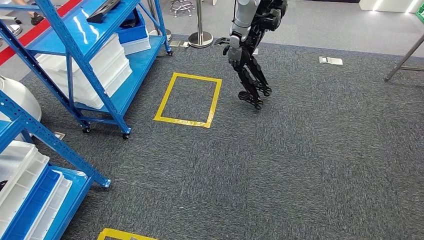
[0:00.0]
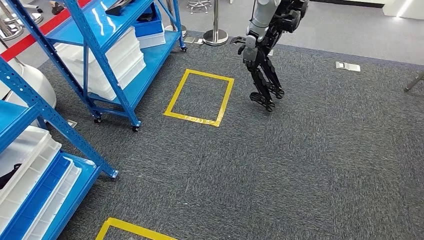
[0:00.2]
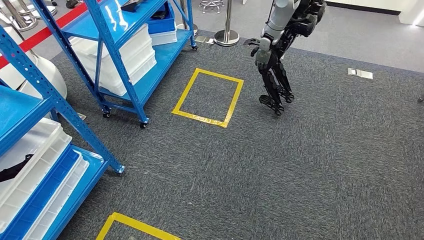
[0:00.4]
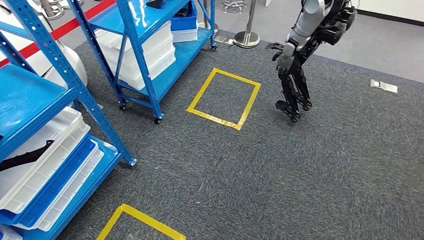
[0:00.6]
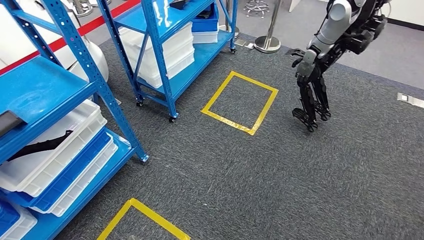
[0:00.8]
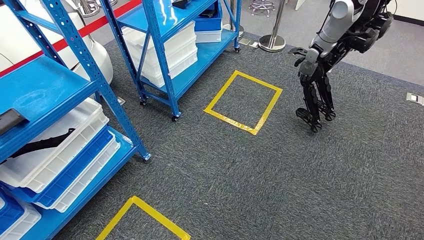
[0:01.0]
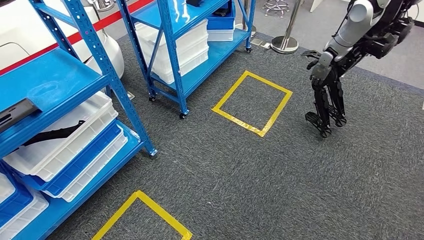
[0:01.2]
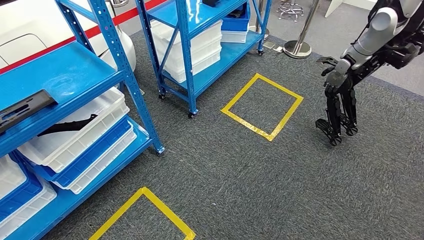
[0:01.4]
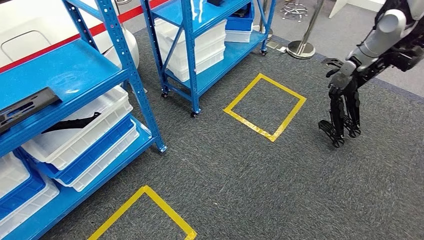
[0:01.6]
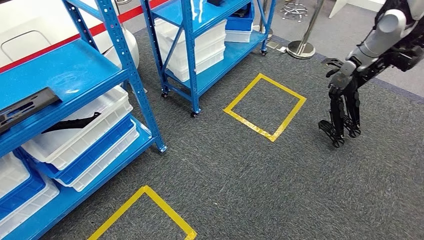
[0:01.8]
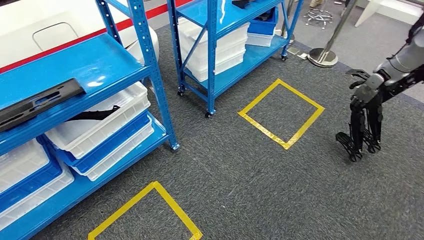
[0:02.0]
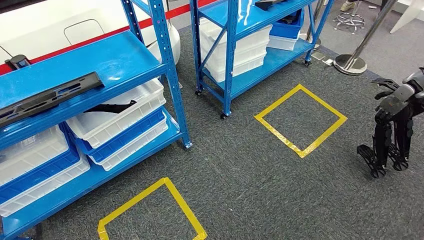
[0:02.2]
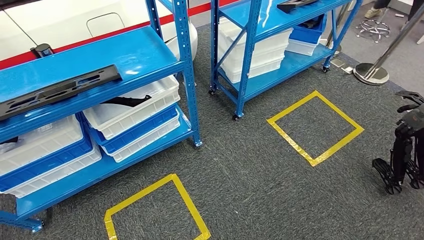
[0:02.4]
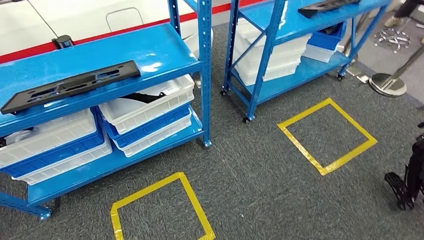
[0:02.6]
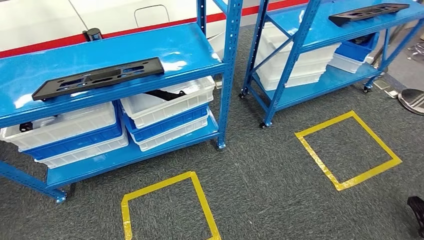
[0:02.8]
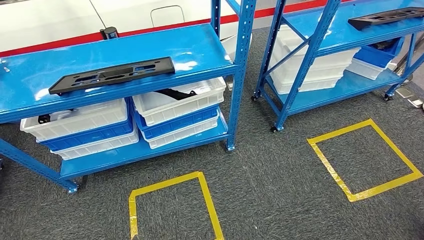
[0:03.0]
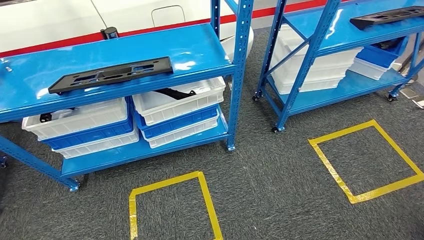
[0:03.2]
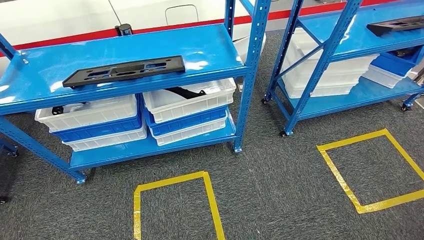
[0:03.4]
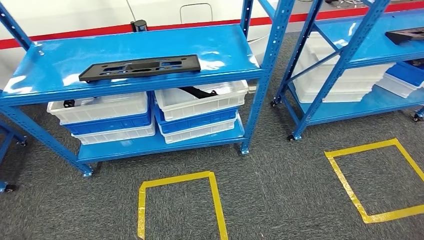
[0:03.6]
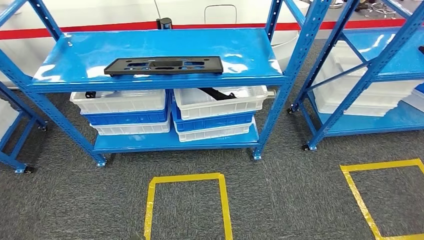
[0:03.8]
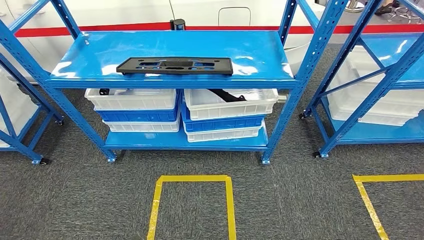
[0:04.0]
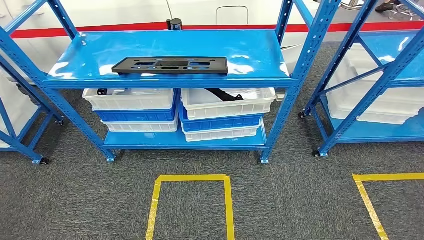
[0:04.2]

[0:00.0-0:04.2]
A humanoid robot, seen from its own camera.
Step, 0:00.0 to 0:04.0: Move to the initial position of the shelf.

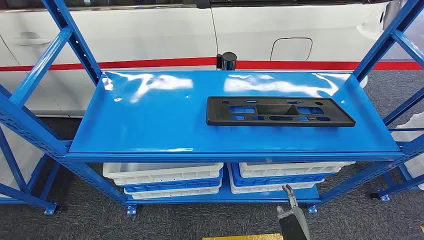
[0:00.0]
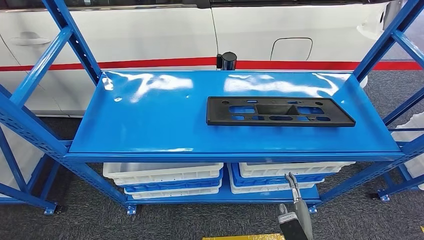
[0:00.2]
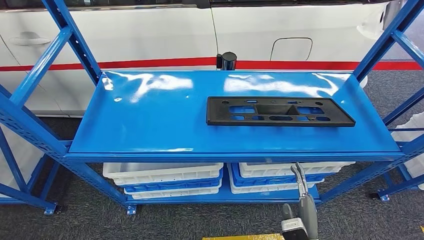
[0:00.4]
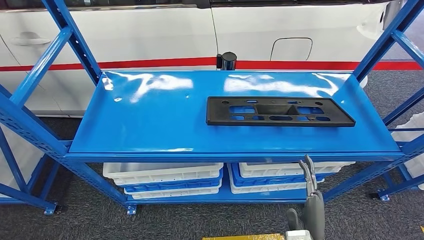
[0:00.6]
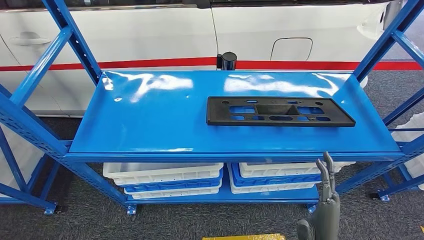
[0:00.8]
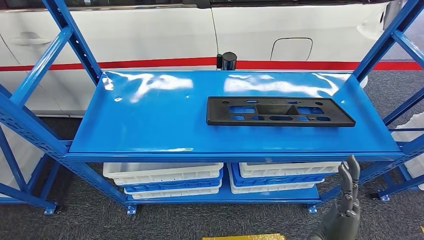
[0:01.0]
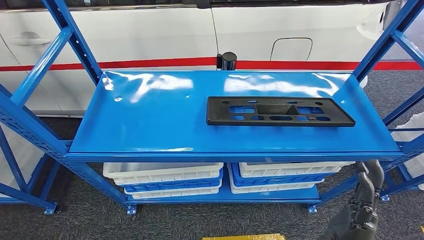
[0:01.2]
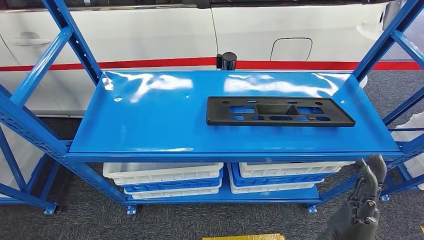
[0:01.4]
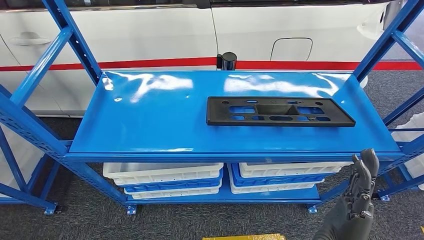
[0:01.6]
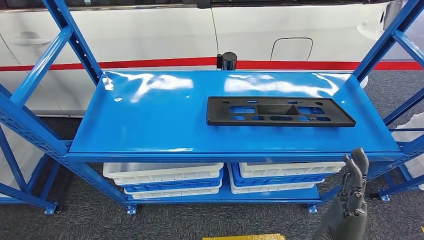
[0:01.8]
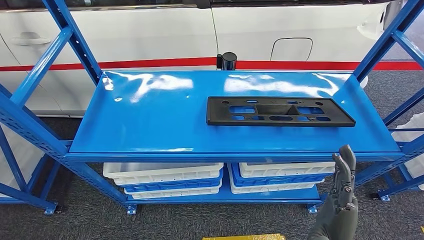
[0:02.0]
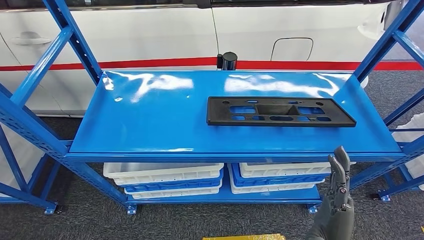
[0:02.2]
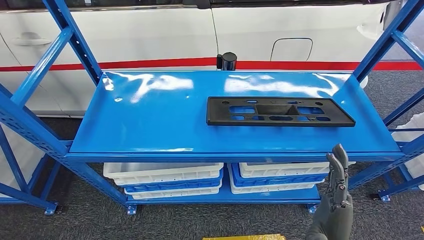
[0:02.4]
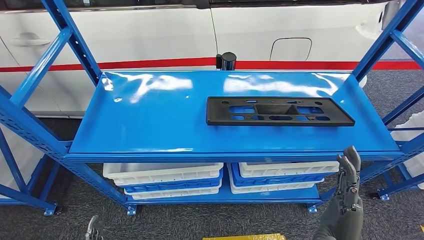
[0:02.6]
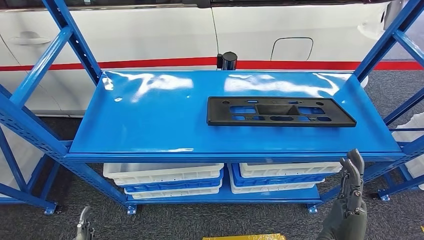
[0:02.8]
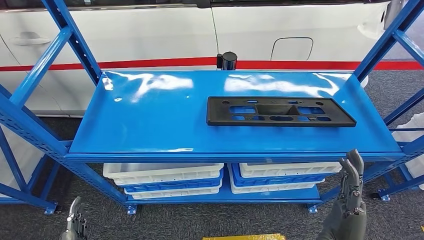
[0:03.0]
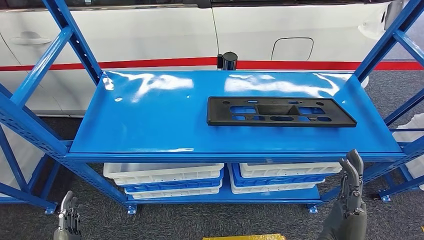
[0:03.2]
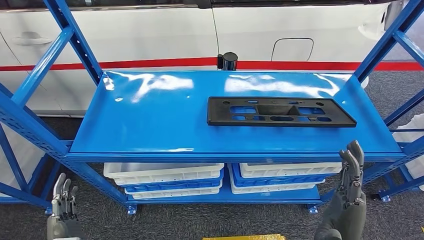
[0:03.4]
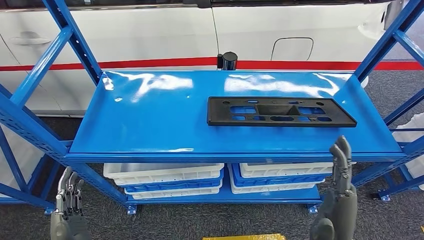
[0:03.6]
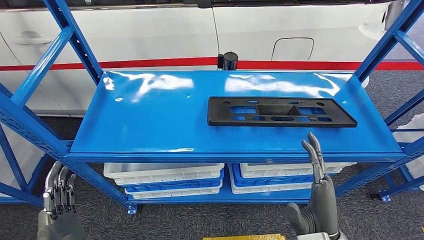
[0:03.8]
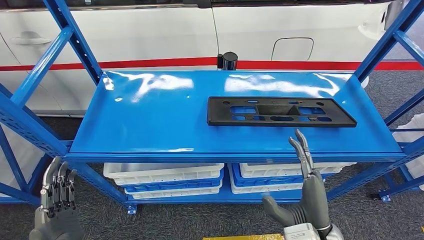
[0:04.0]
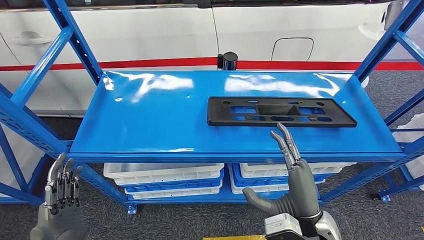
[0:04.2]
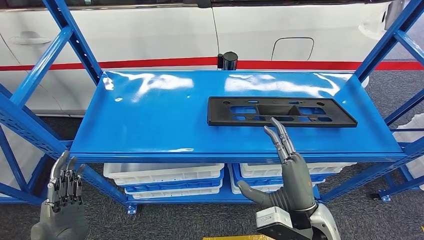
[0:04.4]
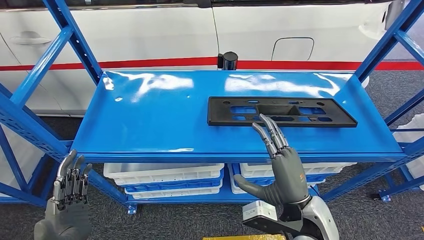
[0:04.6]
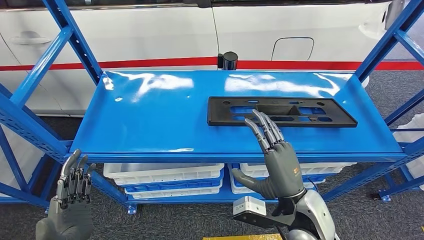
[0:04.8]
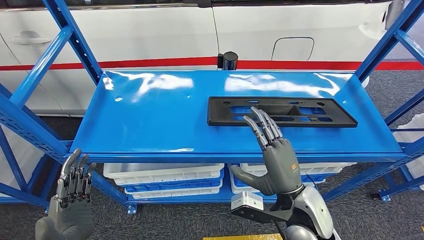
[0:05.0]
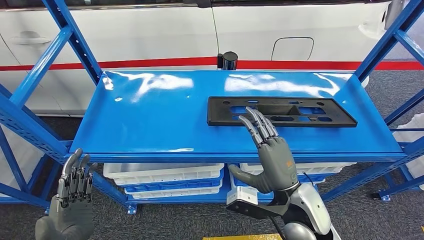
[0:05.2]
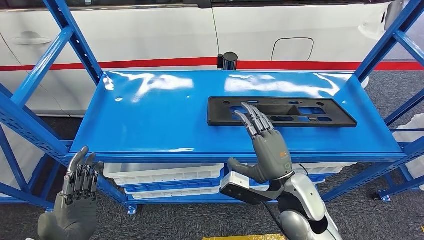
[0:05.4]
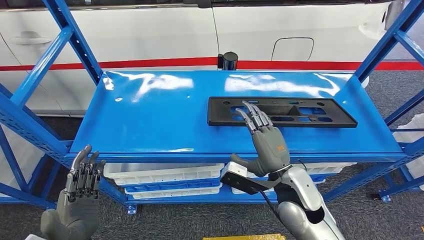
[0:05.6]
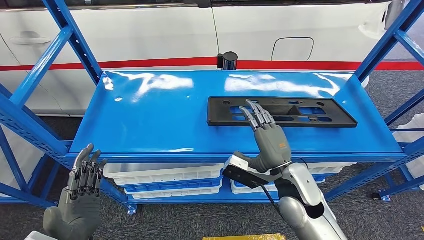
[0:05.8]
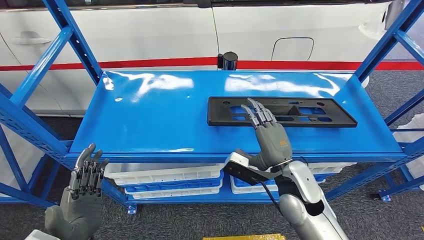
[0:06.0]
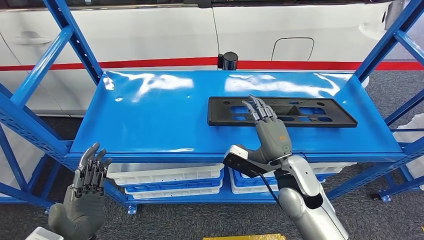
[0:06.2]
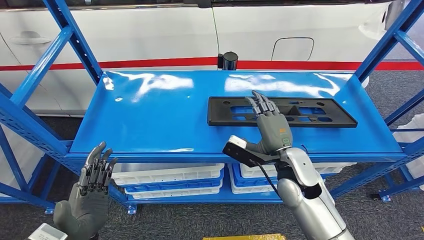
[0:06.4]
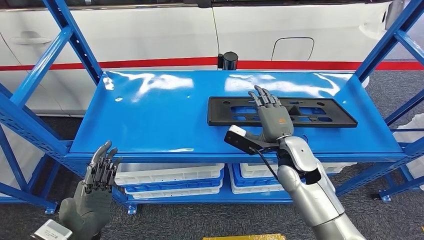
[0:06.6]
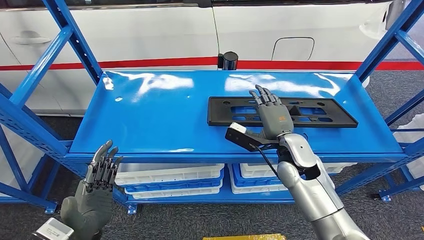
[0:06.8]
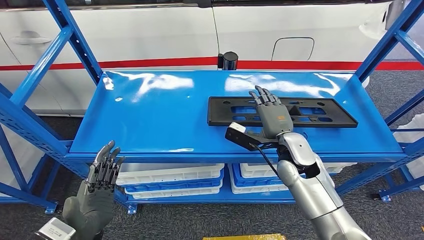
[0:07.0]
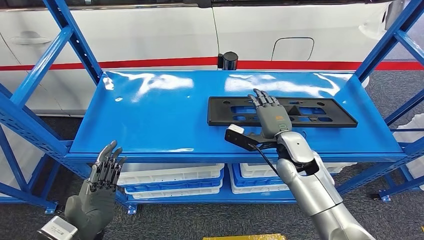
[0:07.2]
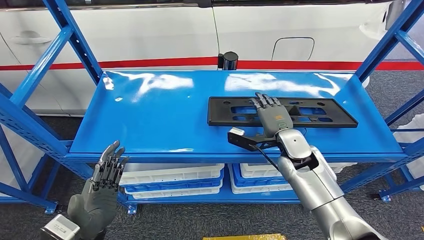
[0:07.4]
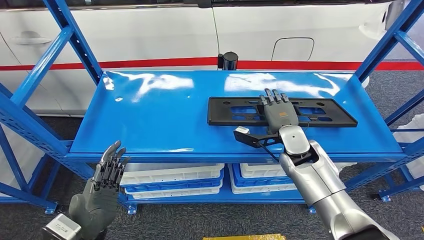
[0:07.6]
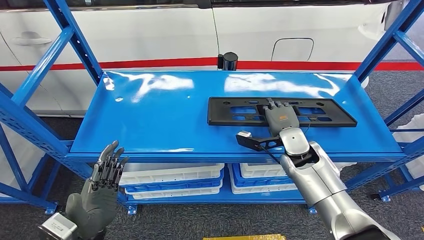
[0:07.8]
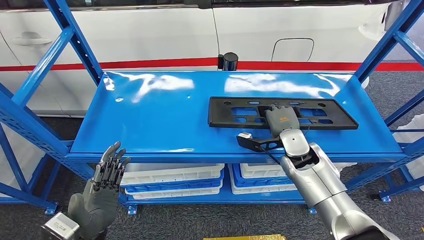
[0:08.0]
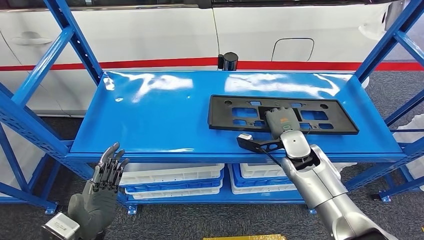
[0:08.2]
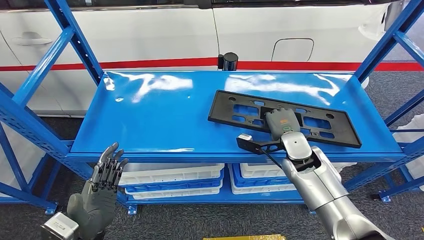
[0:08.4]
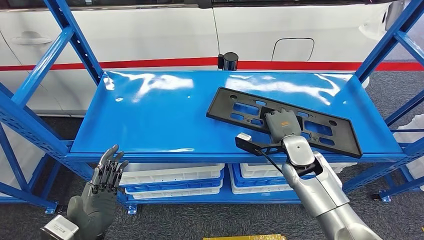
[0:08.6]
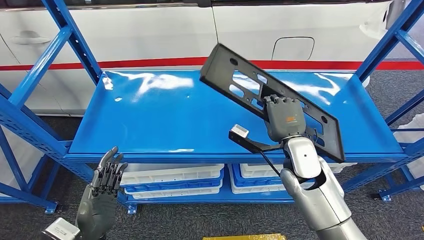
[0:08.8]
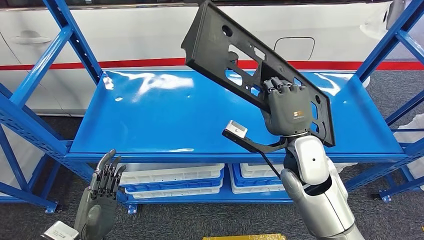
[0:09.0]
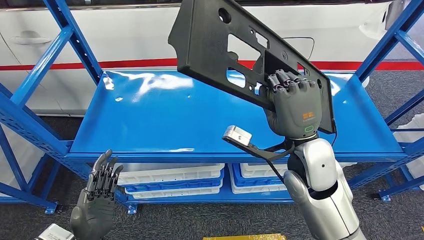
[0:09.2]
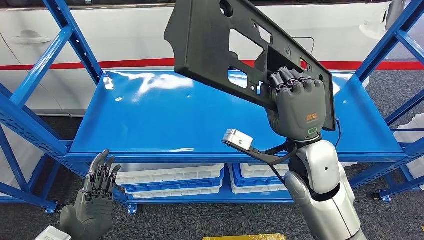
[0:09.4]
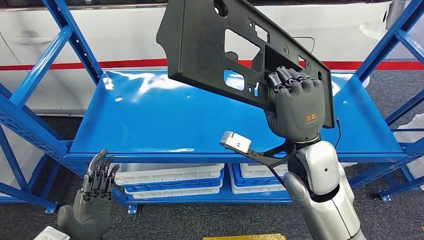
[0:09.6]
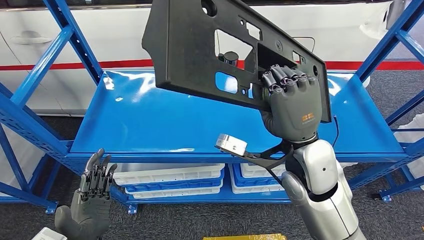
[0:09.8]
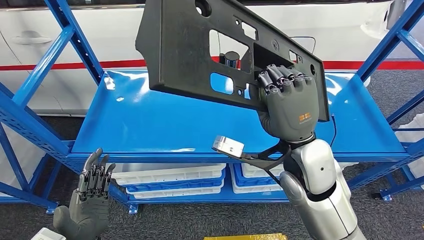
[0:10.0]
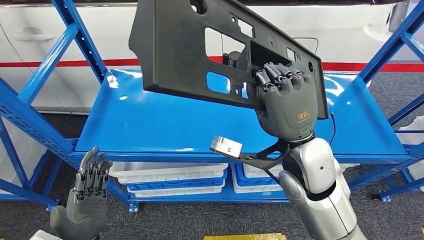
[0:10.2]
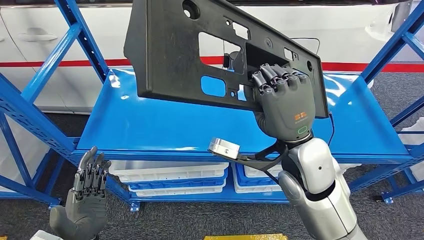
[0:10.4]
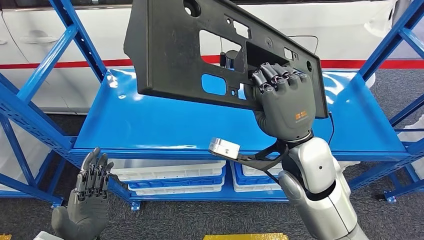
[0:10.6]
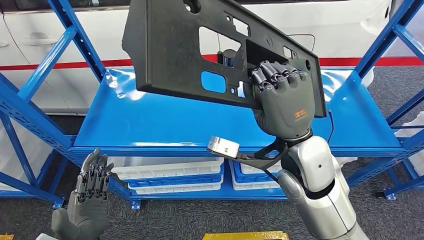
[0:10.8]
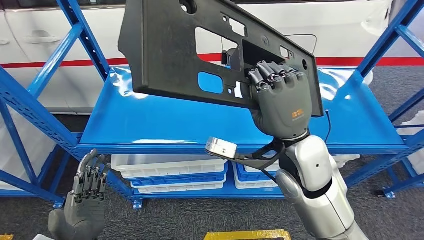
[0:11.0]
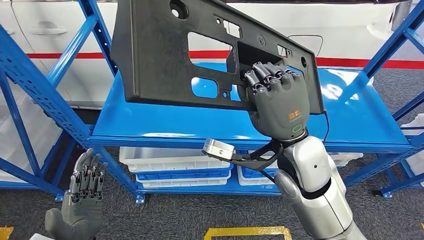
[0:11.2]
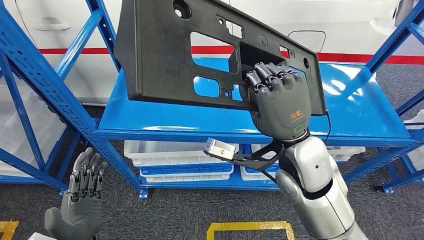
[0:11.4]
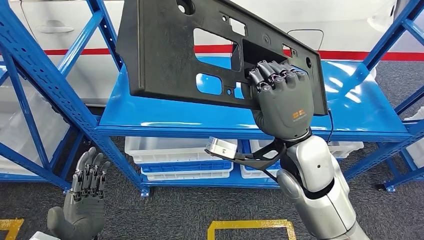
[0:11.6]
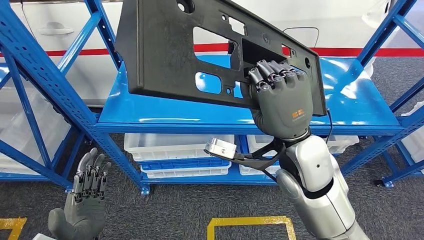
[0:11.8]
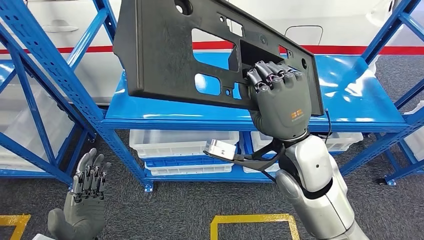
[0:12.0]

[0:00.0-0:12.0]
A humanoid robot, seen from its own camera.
0:03.0 to 0:04.4: The right hand travels forward by roughly 5 cm. Meanwhile the left hand is displaced upward by roughly 10 cm.
0:04.4 to 0:06.0: The right hand goes roughly 10 cm forward.
0:06.0 to 0:07.6: The right hand goes roughly 10 cm forward.
0:07.6 to 0:09.0: The right hand travels upward and backward by some 10 cm.

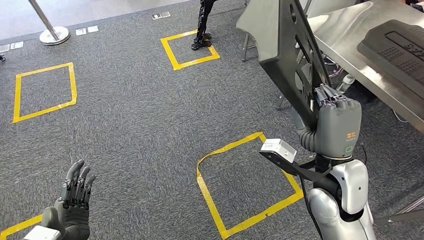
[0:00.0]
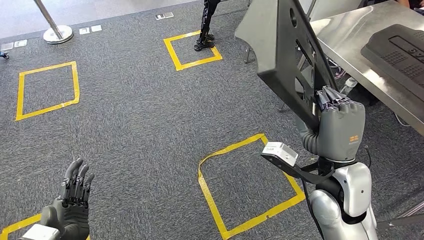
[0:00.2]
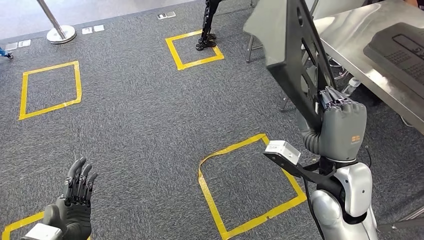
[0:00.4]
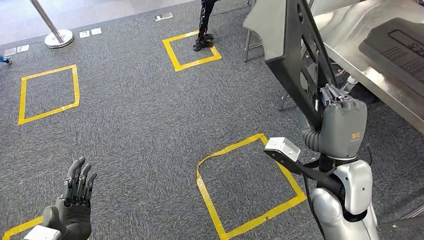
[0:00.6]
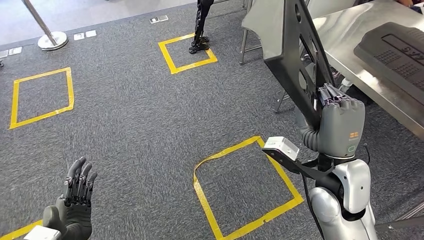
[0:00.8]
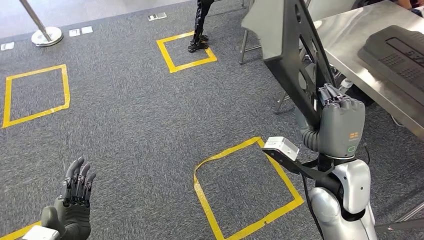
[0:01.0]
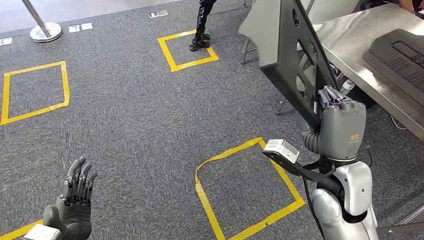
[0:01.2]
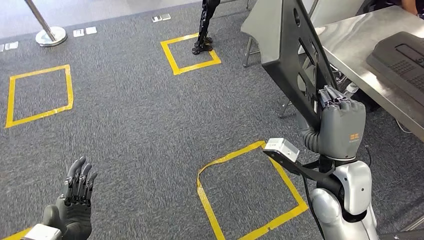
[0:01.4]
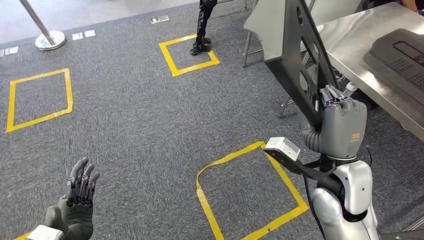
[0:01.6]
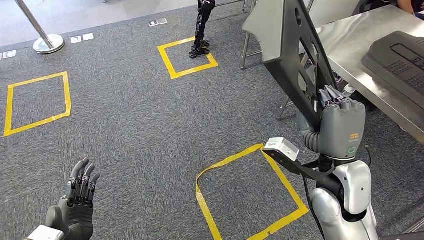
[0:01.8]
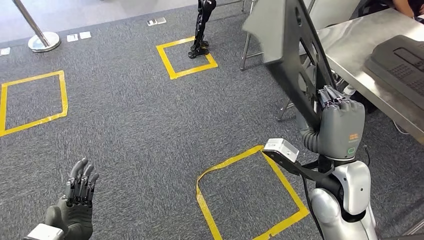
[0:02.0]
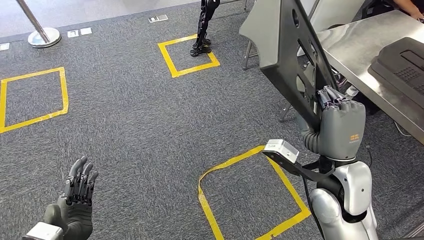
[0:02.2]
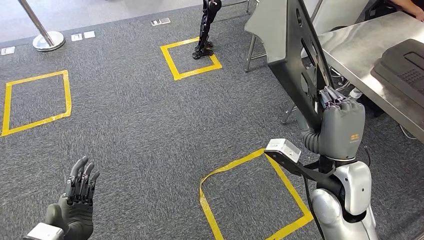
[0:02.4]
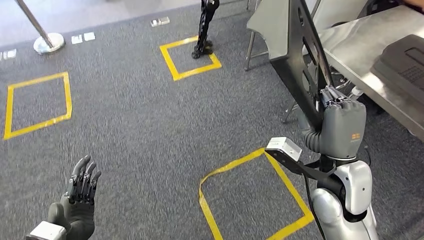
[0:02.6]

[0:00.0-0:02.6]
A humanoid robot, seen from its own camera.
0:00.0 to 0:01.2: Neither hand changes place.
